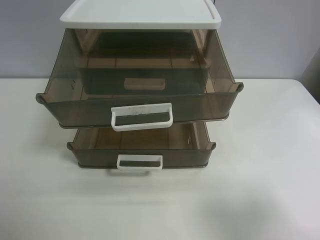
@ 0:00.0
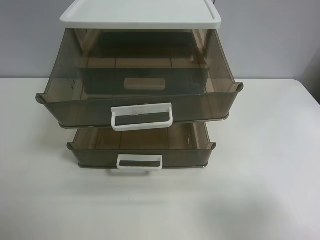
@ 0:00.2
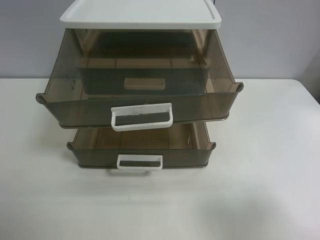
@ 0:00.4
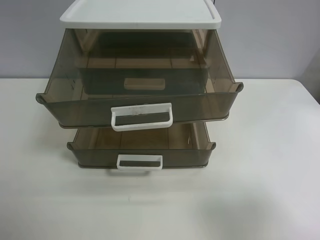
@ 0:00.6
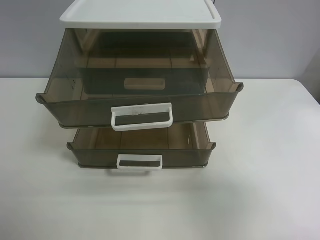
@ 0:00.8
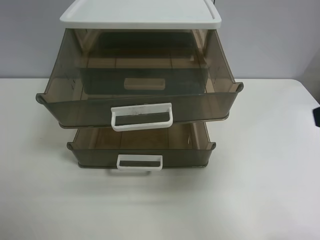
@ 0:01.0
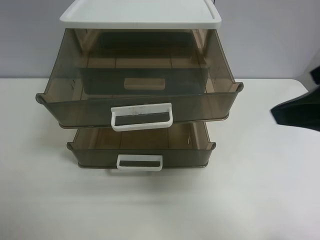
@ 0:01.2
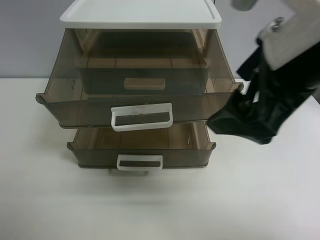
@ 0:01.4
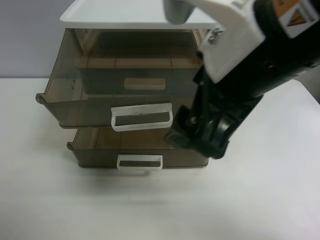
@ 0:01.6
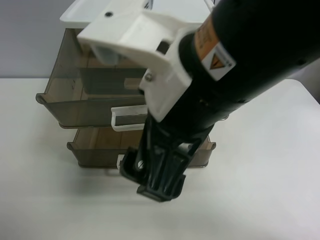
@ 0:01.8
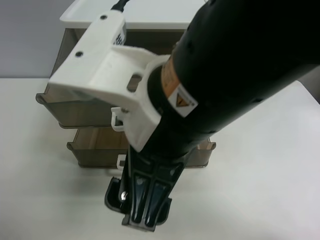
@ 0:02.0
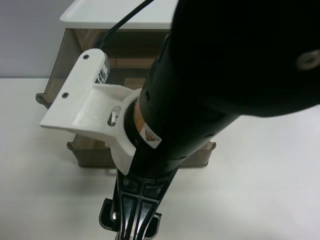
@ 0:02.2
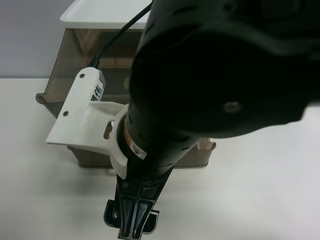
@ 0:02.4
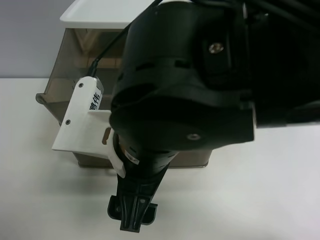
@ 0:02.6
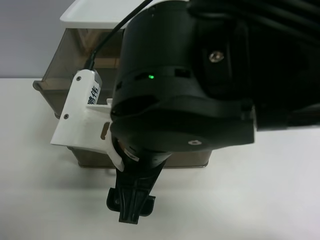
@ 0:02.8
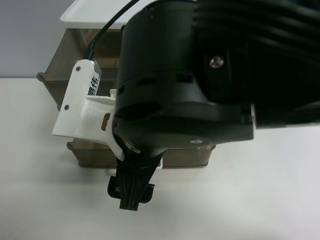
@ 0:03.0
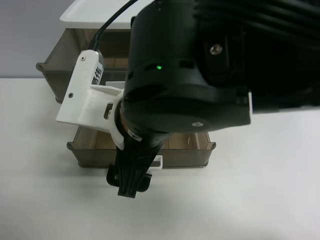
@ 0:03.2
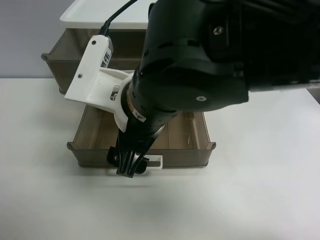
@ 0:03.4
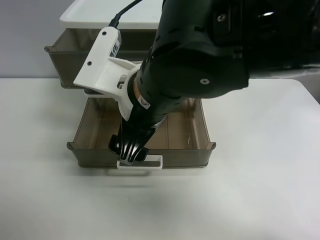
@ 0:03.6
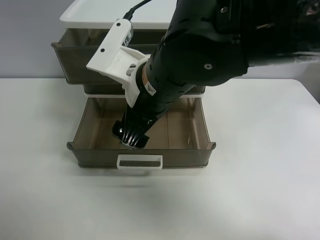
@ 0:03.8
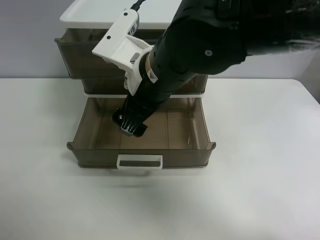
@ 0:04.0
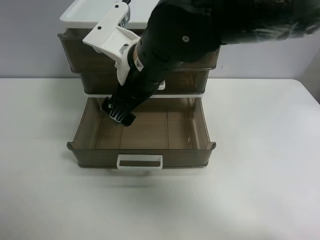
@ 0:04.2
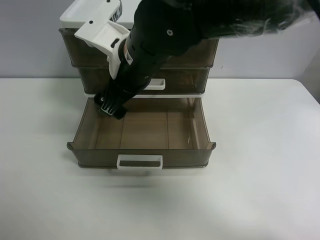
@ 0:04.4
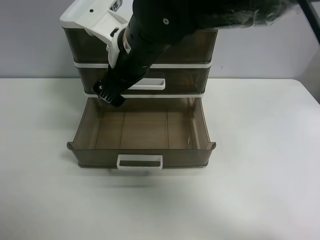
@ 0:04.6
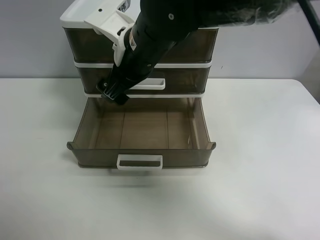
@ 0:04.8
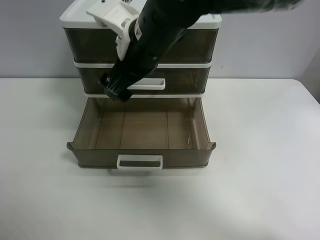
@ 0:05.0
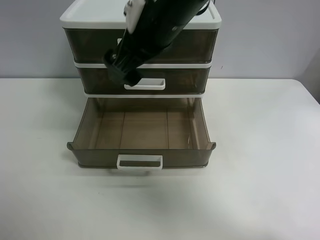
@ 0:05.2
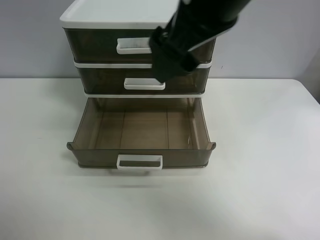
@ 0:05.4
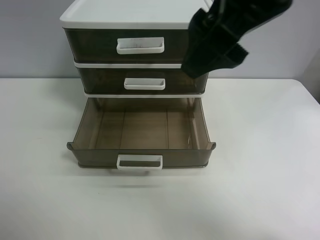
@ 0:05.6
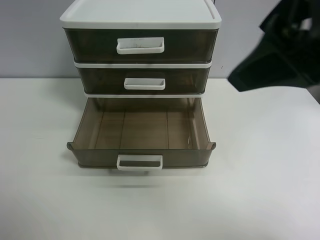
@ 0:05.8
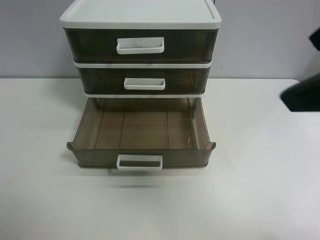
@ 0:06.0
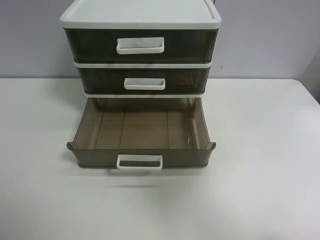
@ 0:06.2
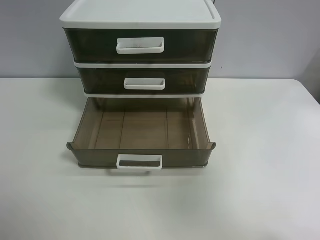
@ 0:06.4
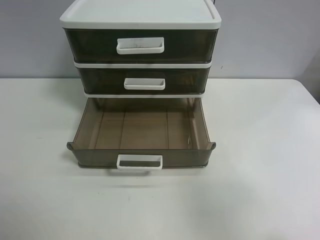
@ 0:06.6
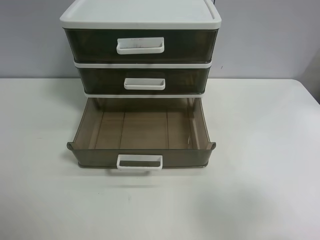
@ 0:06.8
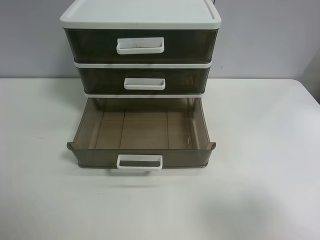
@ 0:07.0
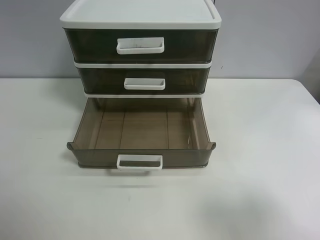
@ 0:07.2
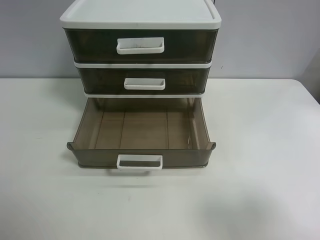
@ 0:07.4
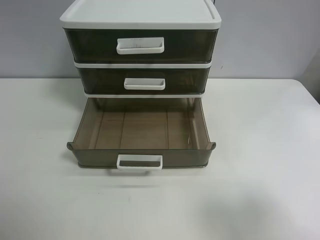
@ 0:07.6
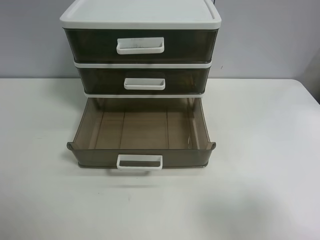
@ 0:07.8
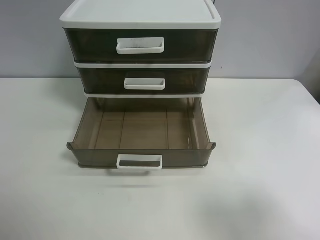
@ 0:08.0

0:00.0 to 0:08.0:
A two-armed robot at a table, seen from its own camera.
Task of the whole recording: close the top drawer.
Step, 0:00.0 to 0:02.6: Use the right gripper to touch the topmost layer of the storage cabinet.
Step, 0:02.8 to 0:05.0: Push the top drawer closed.
0:00.0 to 0:01.6: The right gripper is displaced to the left and forward by about 25 cm.
0:01.6 to 0:03.2: The right gripper is displaced downward and to the left by roughly 10 cm.
0:03.2 to 0:04.8: The right gripper is displaced forward by approximately 15 cm.
0:04.8 to 0:06.4: The right gripper moves to the right and backward, some 40 cm.
0:06.4 to 0:08.0: The right gripper moves downward, roughly 5 cm.
